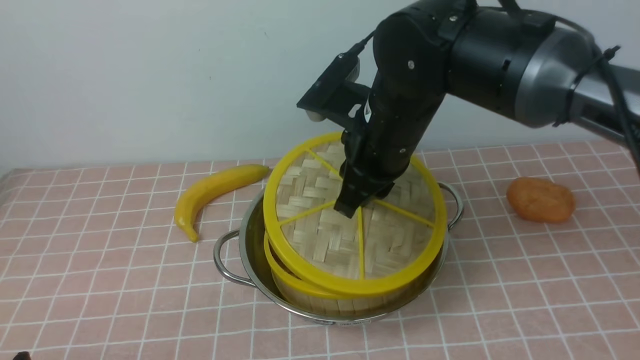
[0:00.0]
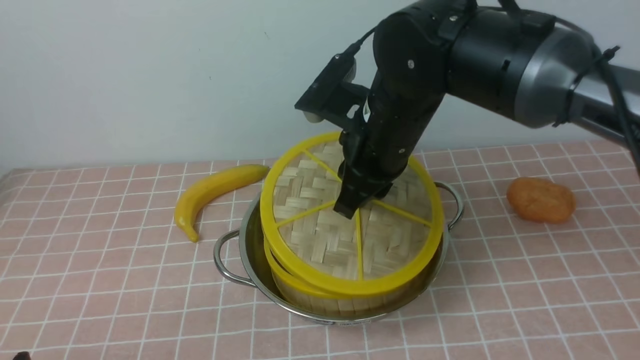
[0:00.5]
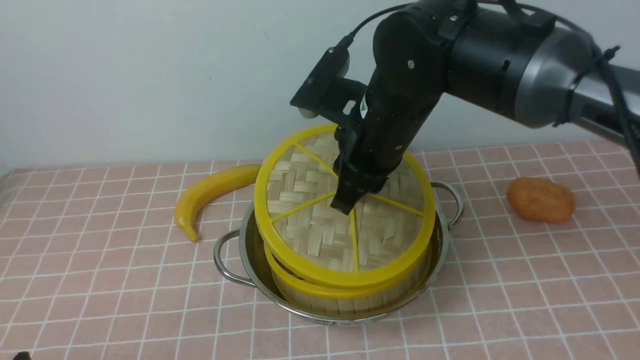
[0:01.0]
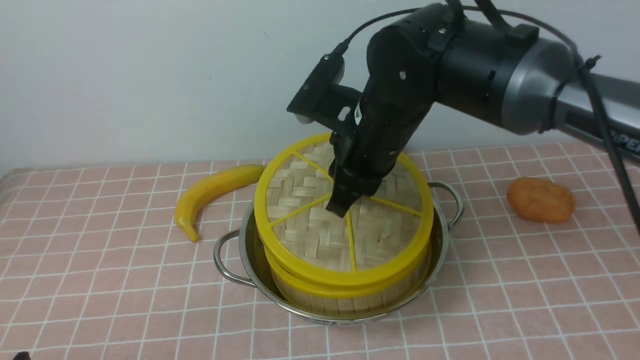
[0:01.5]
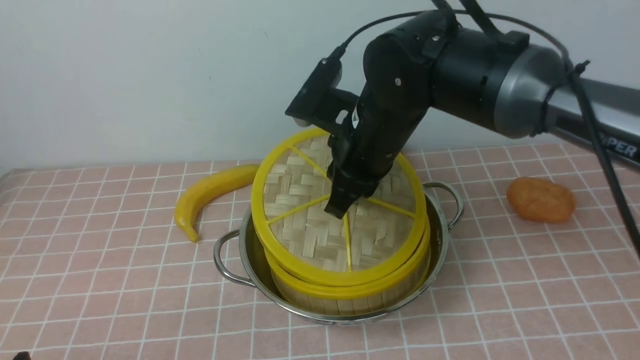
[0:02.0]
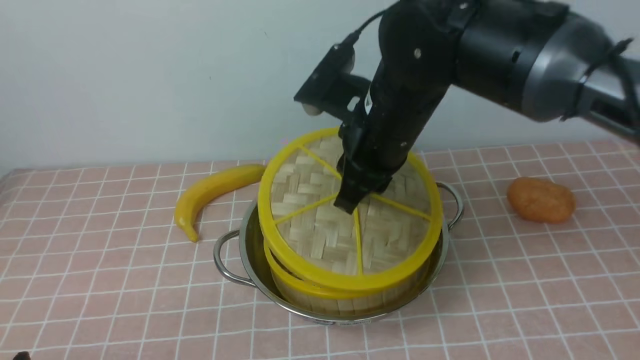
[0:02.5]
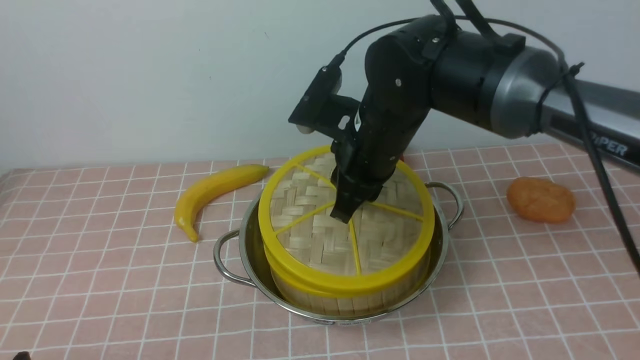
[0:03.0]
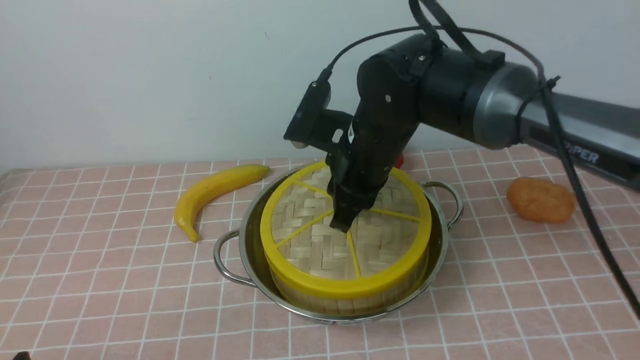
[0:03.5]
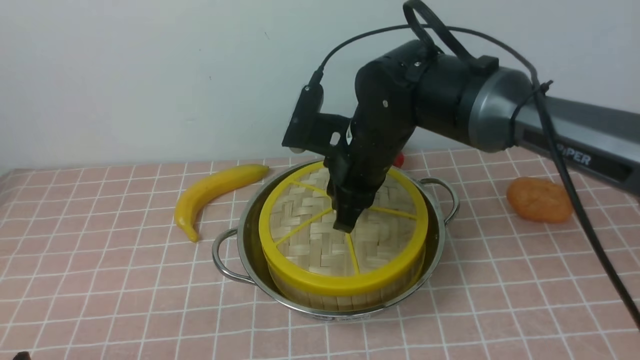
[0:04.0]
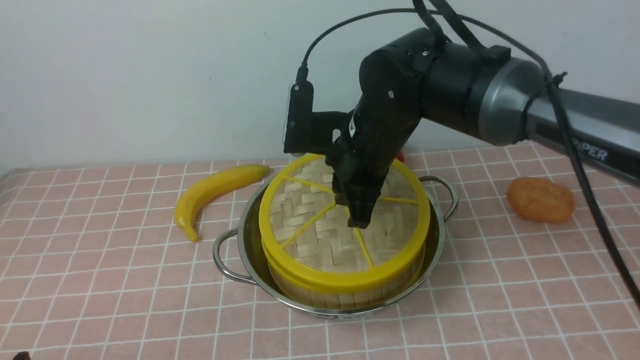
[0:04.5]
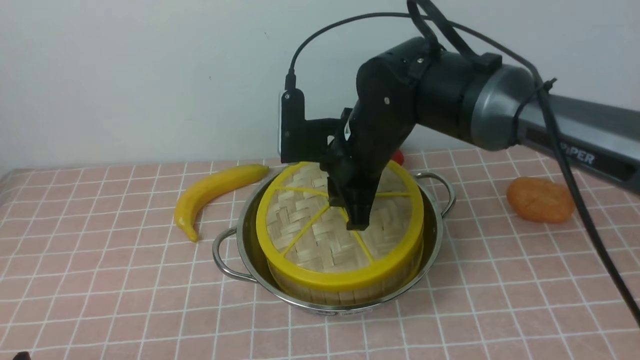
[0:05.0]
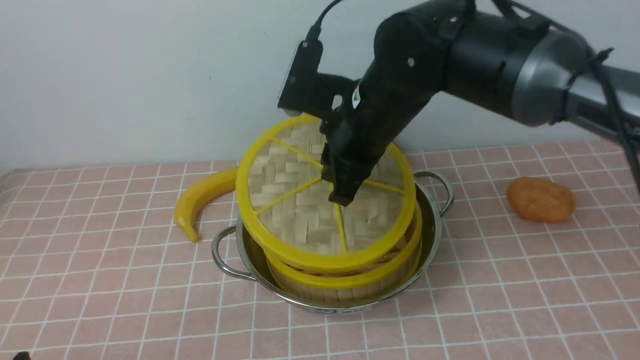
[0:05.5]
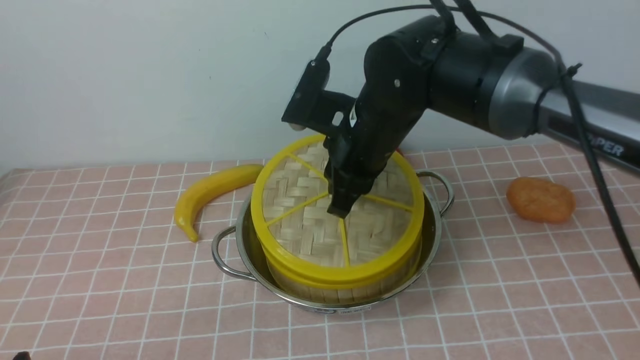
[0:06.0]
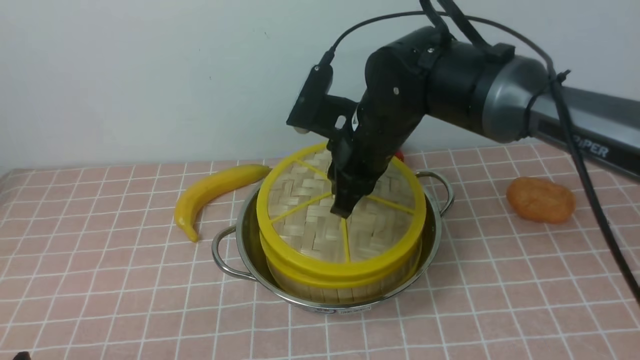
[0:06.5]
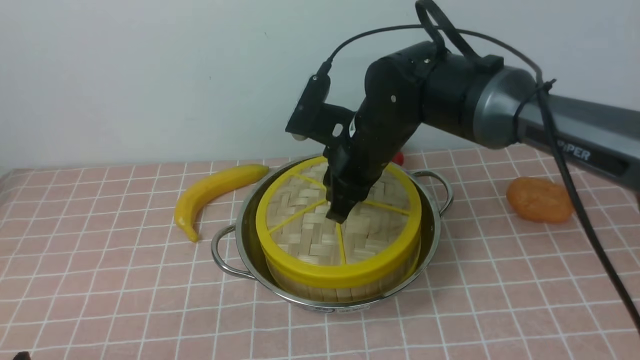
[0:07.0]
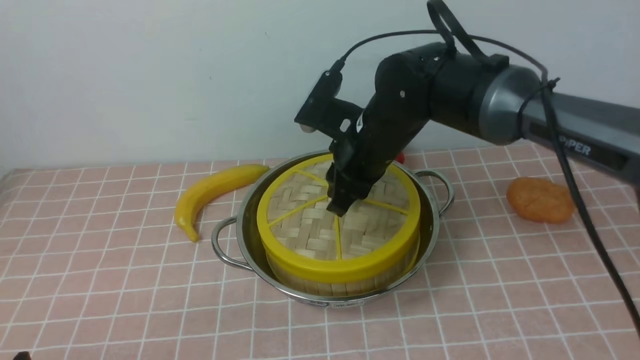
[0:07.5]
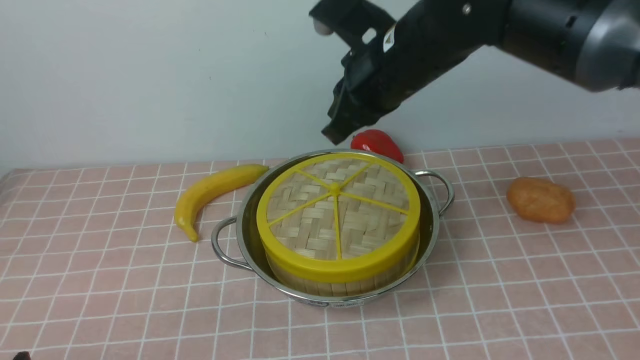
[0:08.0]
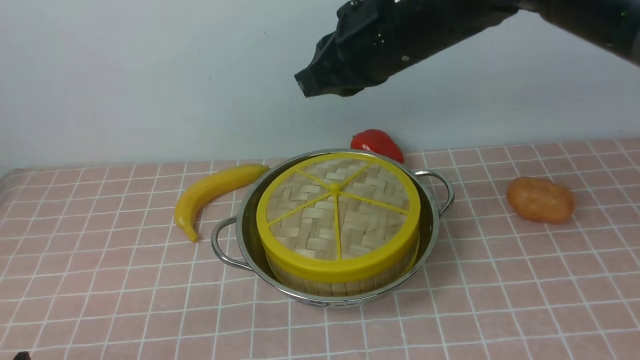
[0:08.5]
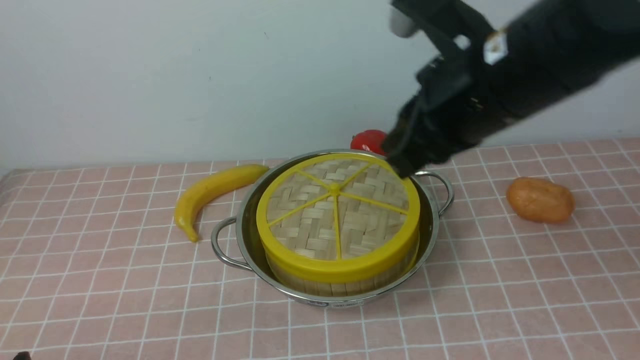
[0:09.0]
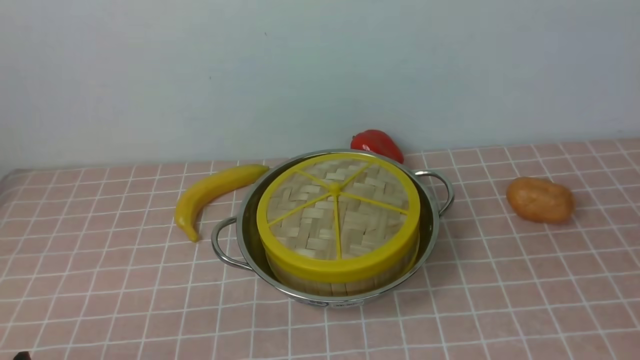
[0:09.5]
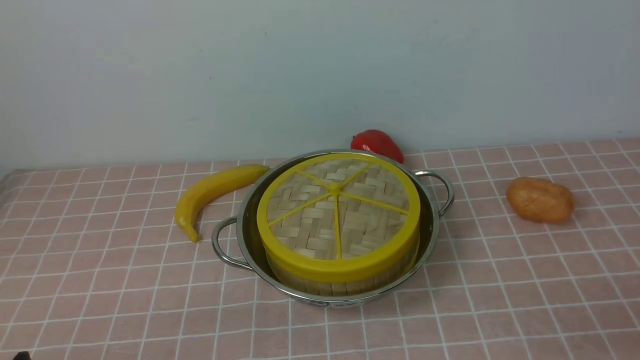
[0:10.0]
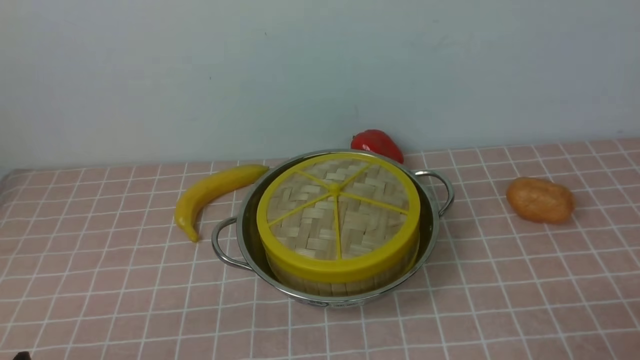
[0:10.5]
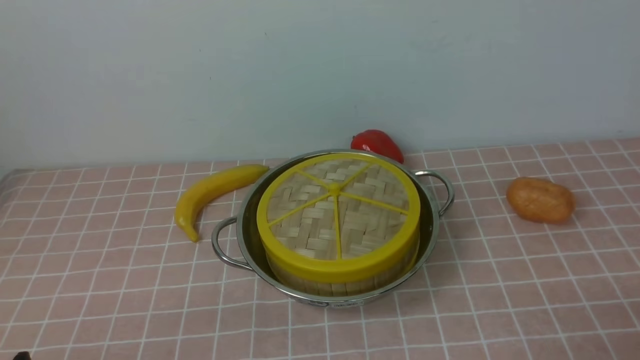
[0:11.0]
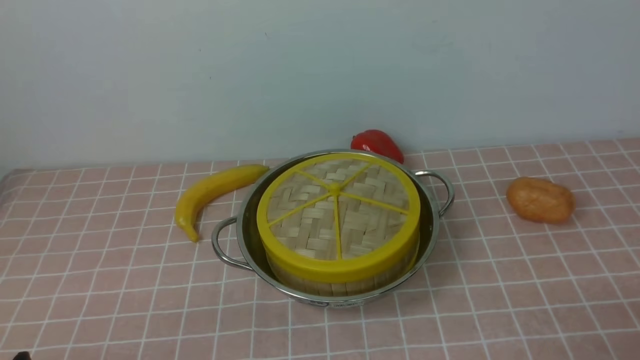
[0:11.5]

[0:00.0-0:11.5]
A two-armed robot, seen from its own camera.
Task of the whole recording: place the steamer in the pot on the pink tablecloth, and put the lid on the steamer.
Step, 0:00.0 to 0:07.5: use the right arm to place the steamer lid on the steamer.
0:00.0 to 0:02.0: The grippers make only small movements.
0:02.0 to 0:04.0: The right gripper ends up approximately 5 cm from where it was.
0:04.0 to 0:07.5: There are only small adjustments of the grippers.
0:07.5 to 0:09.5: The right gripper shifts some 35 cm backward and to the right, and closes, then opens again.

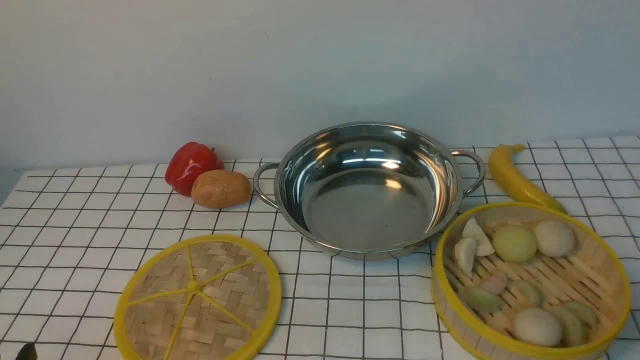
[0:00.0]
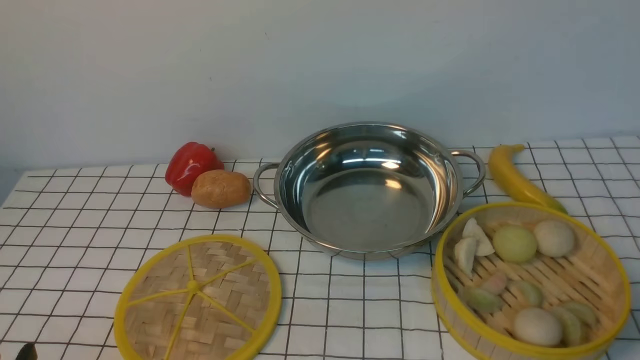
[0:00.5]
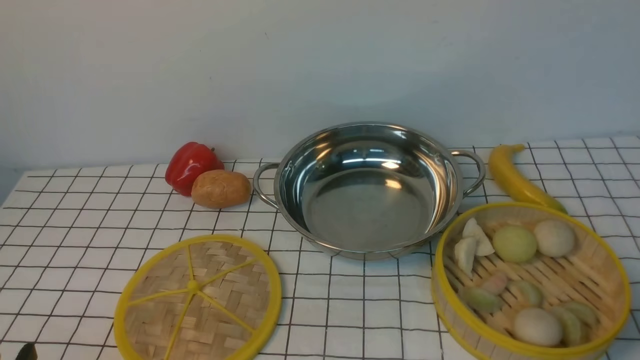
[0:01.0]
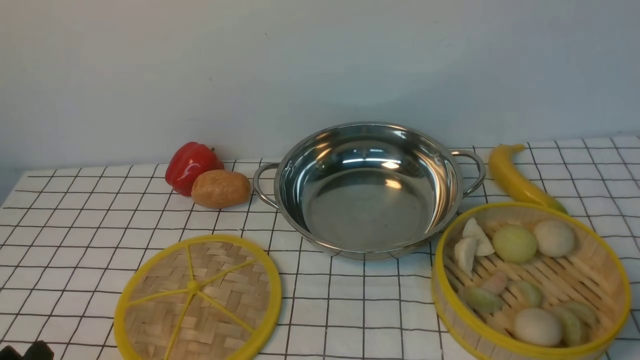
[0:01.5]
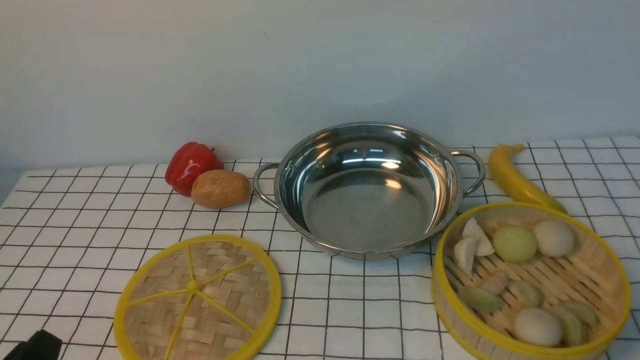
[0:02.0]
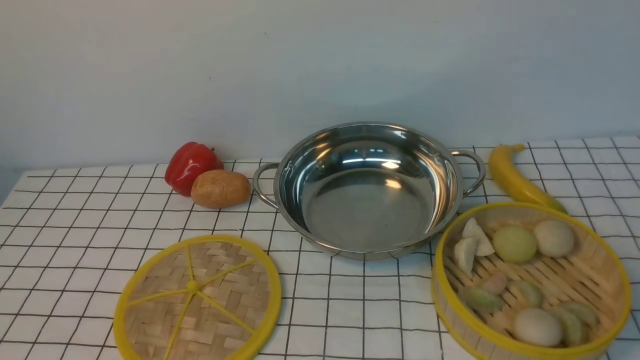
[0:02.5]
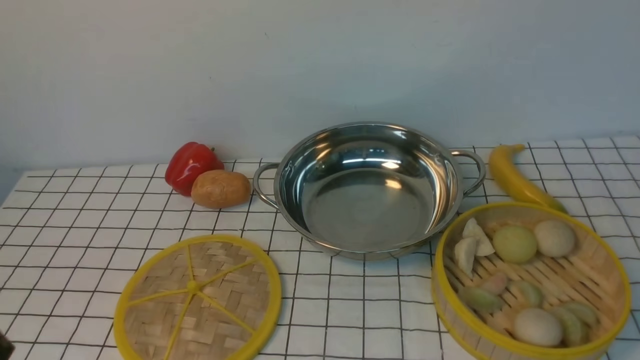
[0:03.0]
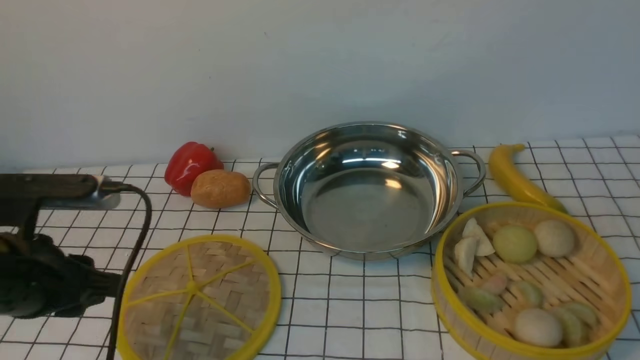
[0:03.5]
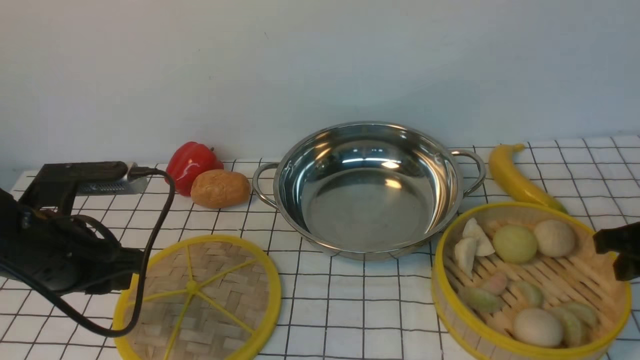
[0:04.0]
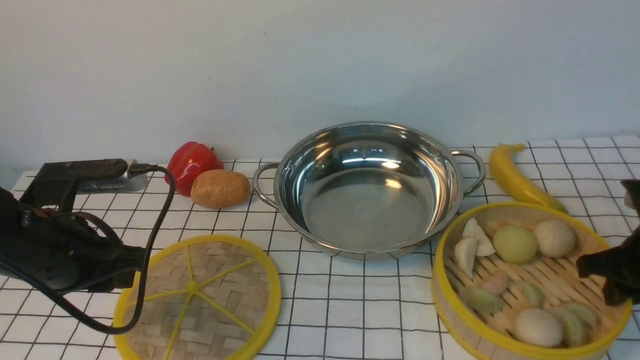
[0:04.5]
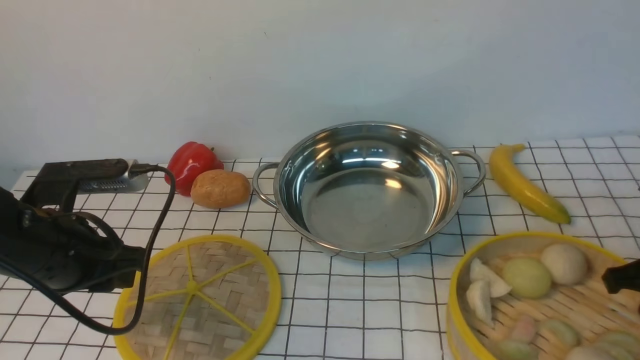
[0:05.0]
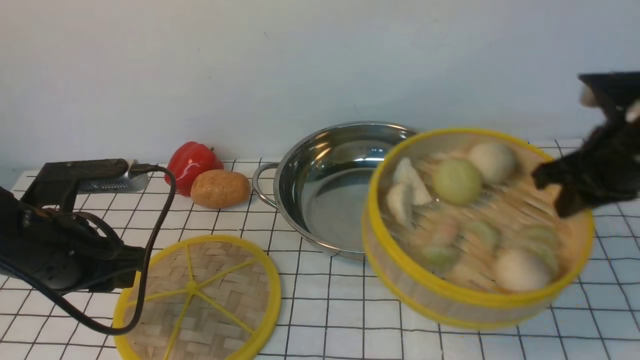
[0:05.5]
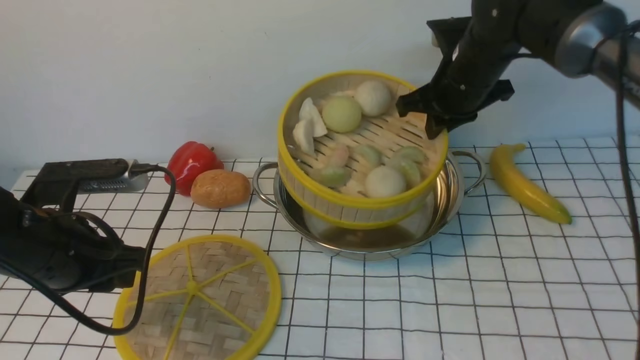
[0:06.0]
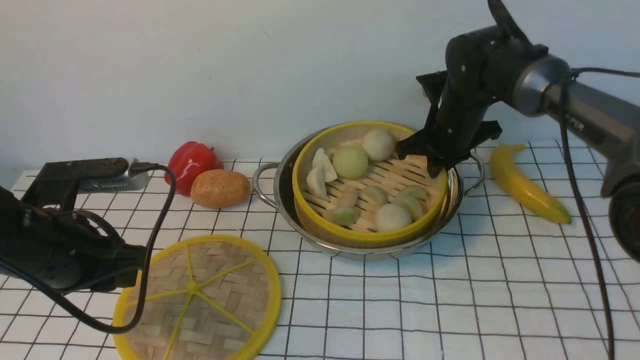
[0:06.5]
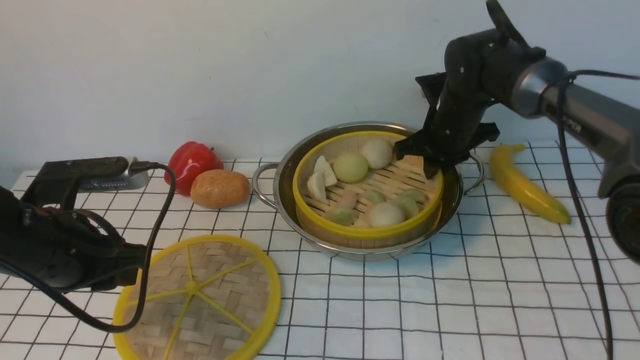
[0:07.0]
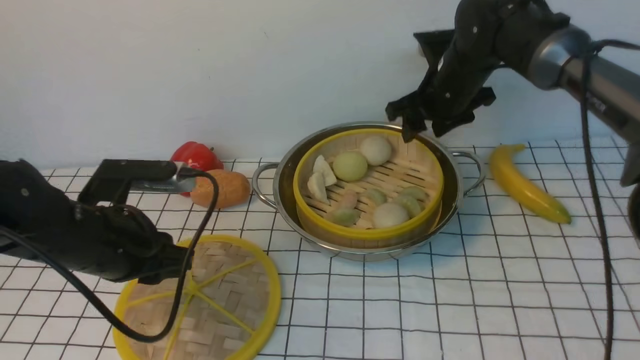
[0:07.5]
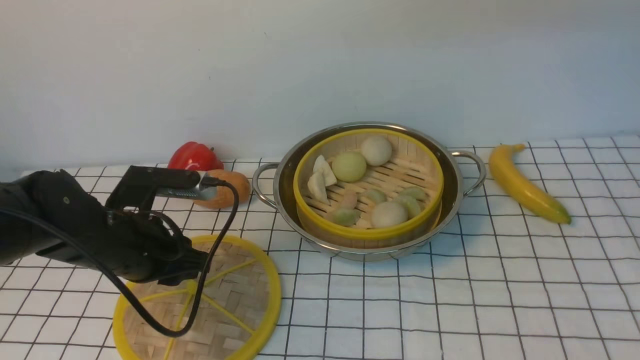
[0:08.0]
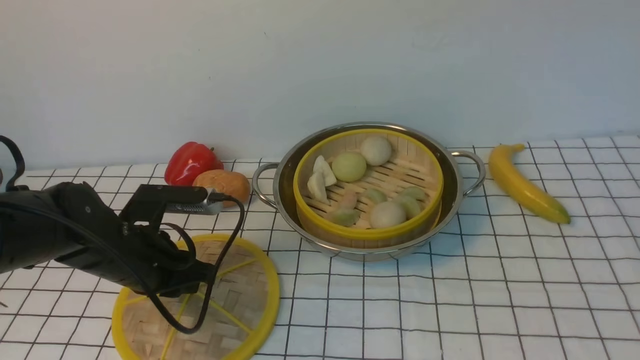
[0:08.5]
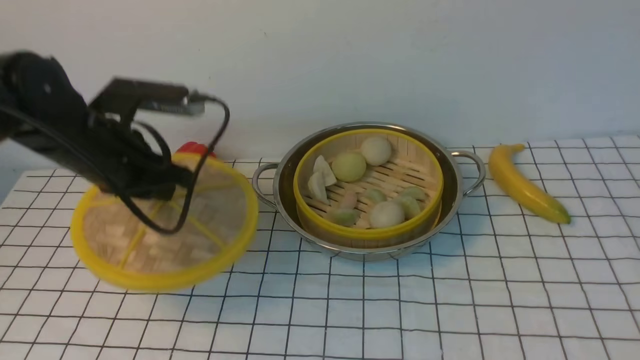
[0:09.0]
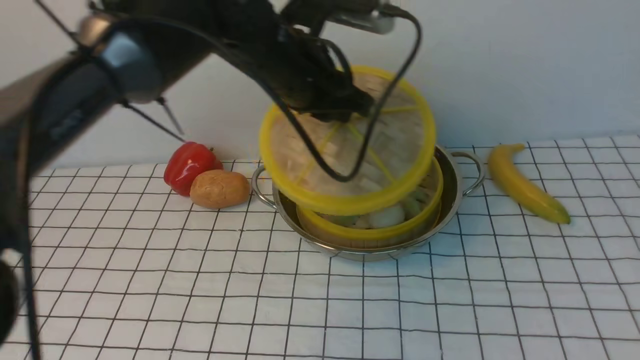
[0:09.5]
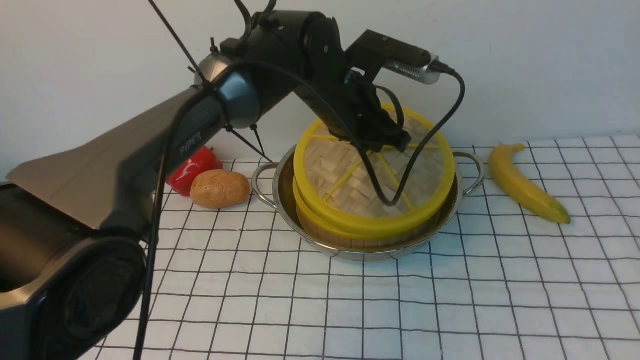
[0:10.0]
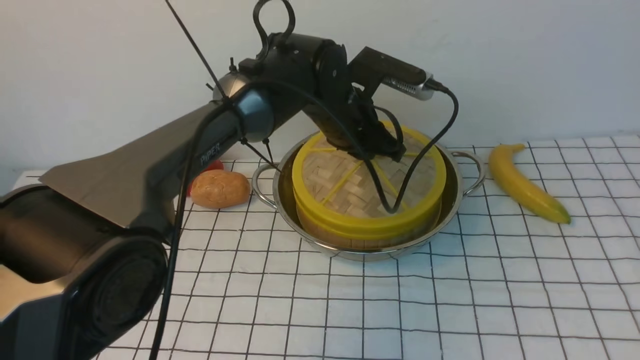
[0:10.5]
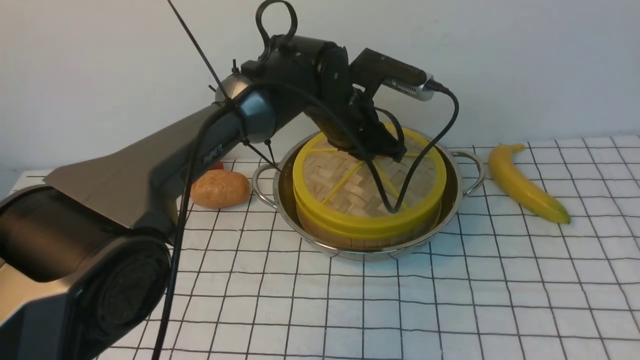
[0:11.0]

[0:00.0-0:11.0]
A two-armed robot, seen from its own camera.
Task of the whole recording: place the steamer in the pot on the white tablecloth, and put the lid on the steamer.
Step, 0:00.0 to 0:05.0: use the right arm to lift the steamer closest to it.
Step, 0:05.5 to 0:07.0: use the right arm to put the steamer into the iron steamer pot in the middle.
0:02.0 to 0:03.5: The left gripper goes roughly 15 cm forward and upward.
0:03.5 to 0:05.5: The right gripper is displaced forward and to the left by approximately 15 cm, travels downward and back again, about 10 cm each way, and closes its fingers.
0:05.5 to 0:07.5: The right gripper is displaced forward and to the left by some 20 cm, and opens its fingers.
0:07.5 to 0:09.0: The right gripper heads backward and upward, covering about 50 cm, while the left gripper goes roughly 10 cm forward and upward.
0:09.0 to 0:11.0: The right gripper changes place by approximately 5 cm; the left gripper heads to the right and forward, covering some 25 cm.
